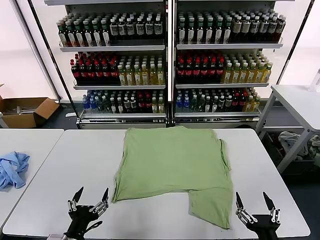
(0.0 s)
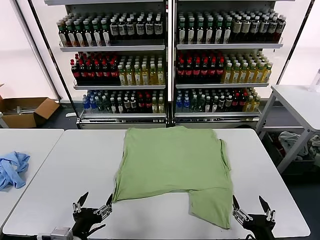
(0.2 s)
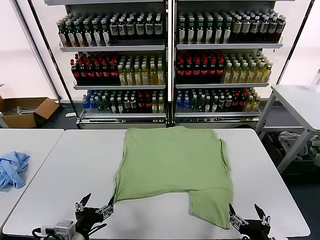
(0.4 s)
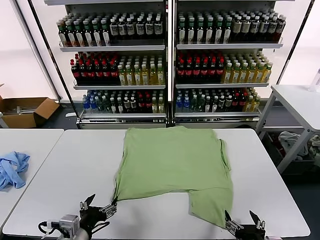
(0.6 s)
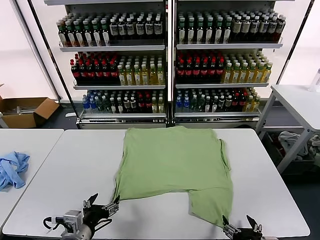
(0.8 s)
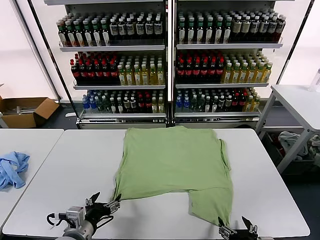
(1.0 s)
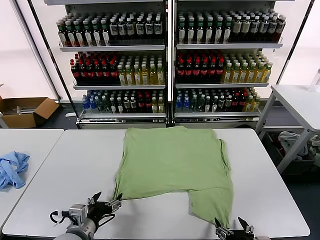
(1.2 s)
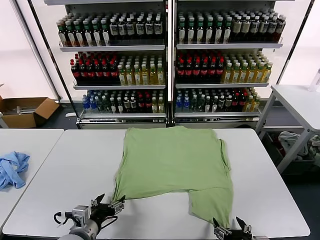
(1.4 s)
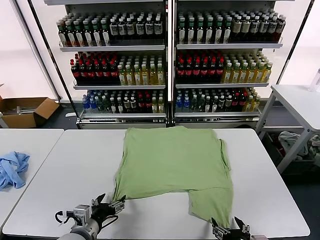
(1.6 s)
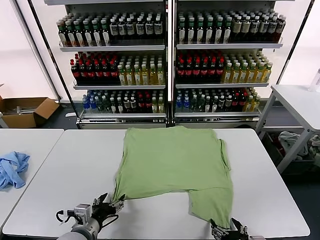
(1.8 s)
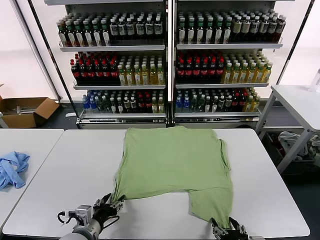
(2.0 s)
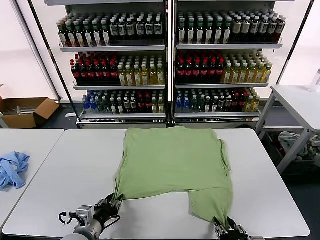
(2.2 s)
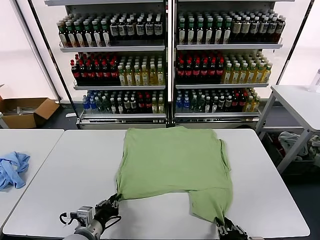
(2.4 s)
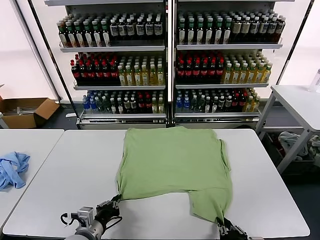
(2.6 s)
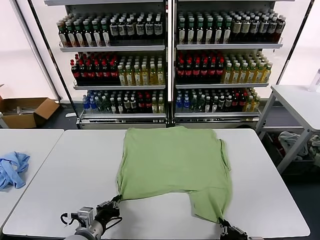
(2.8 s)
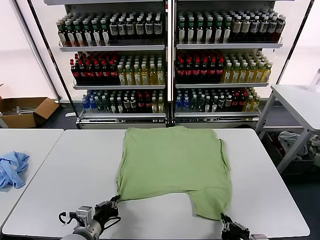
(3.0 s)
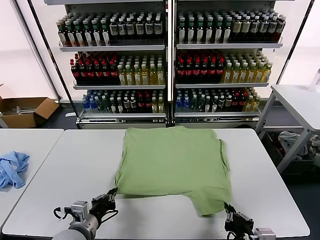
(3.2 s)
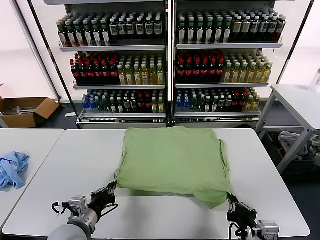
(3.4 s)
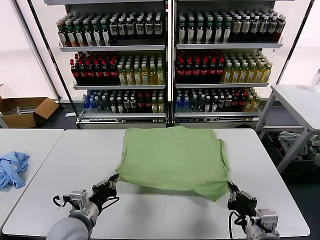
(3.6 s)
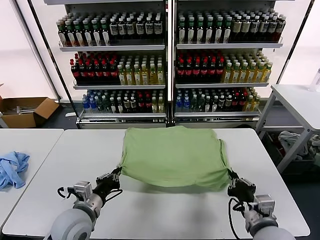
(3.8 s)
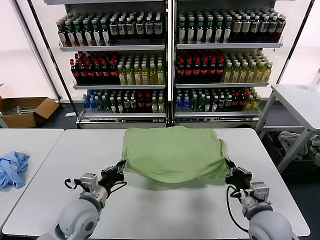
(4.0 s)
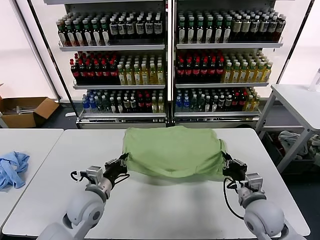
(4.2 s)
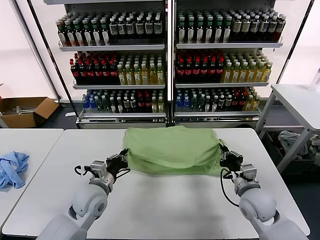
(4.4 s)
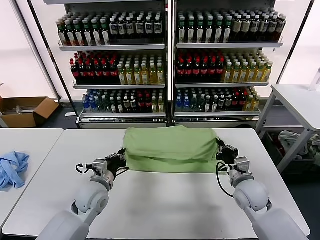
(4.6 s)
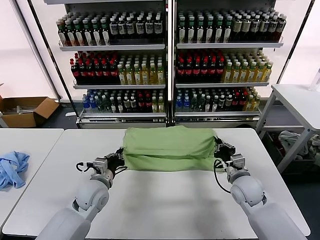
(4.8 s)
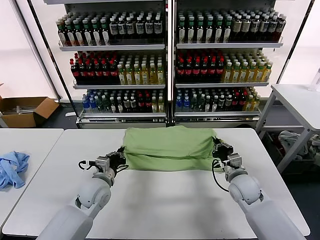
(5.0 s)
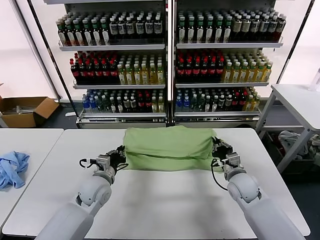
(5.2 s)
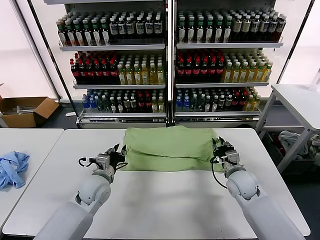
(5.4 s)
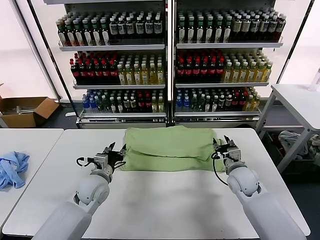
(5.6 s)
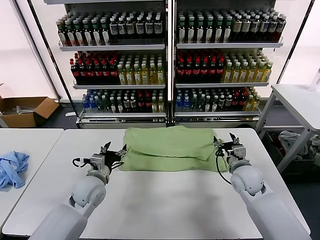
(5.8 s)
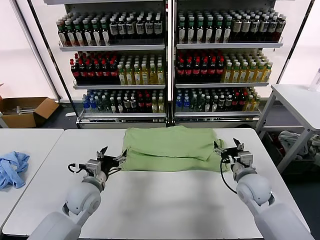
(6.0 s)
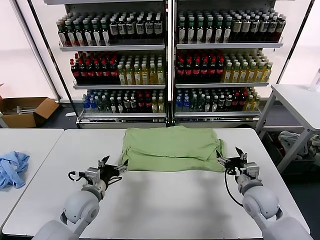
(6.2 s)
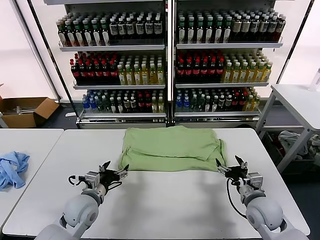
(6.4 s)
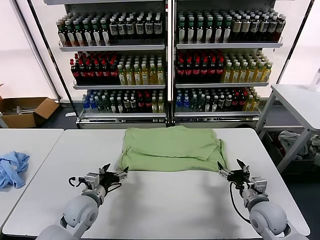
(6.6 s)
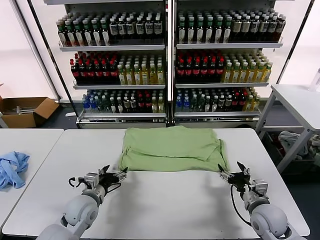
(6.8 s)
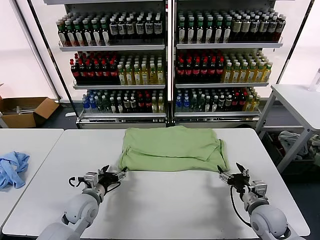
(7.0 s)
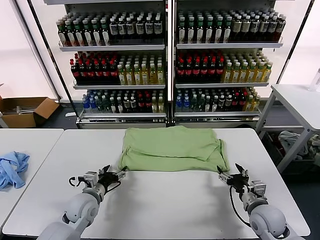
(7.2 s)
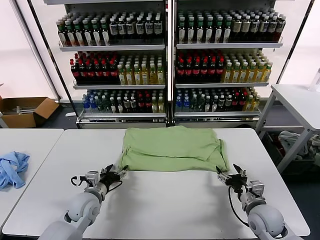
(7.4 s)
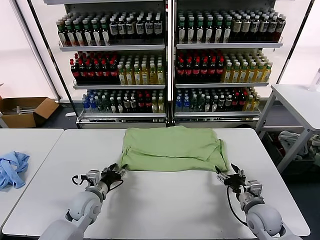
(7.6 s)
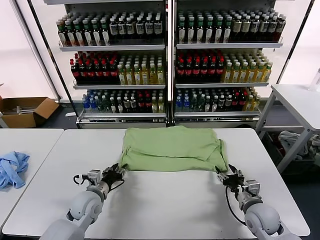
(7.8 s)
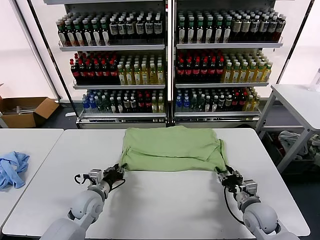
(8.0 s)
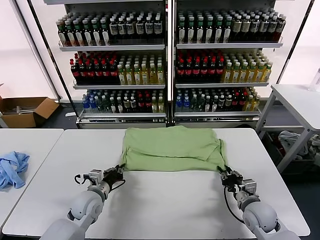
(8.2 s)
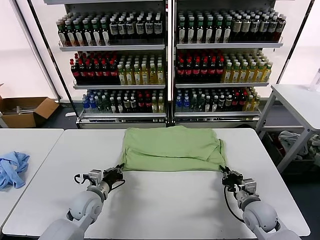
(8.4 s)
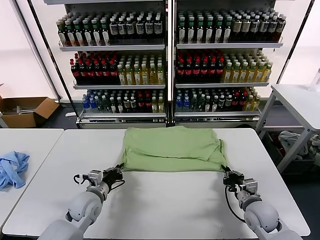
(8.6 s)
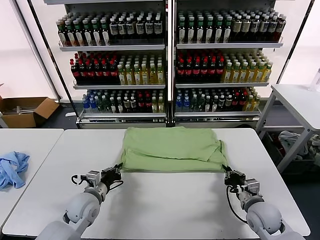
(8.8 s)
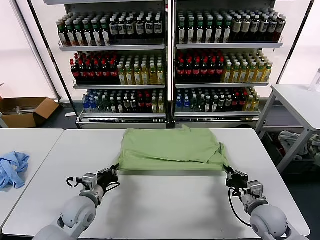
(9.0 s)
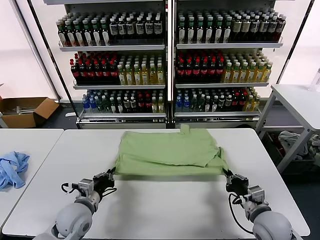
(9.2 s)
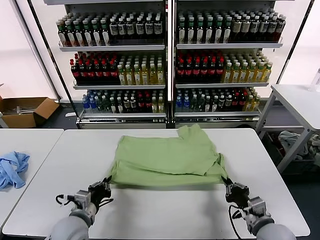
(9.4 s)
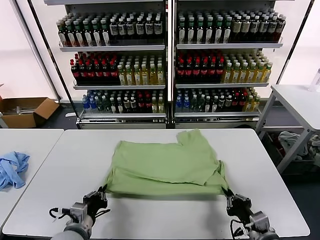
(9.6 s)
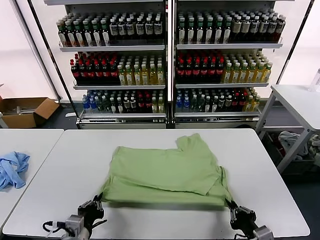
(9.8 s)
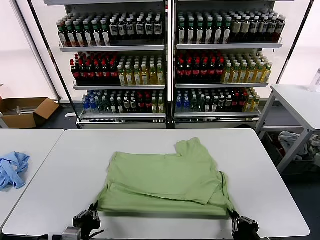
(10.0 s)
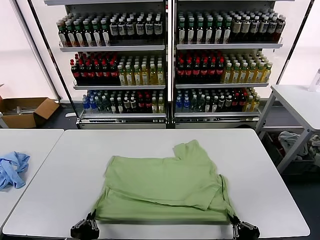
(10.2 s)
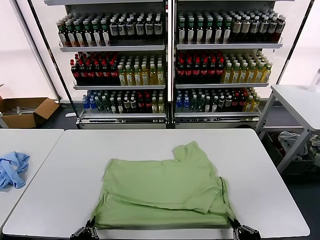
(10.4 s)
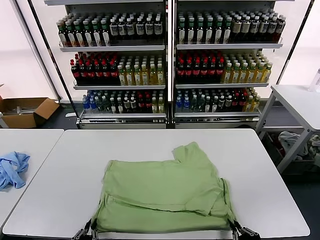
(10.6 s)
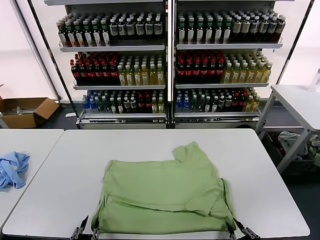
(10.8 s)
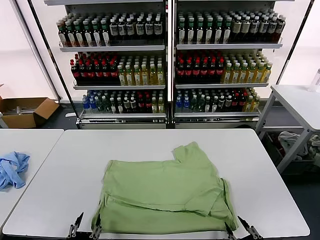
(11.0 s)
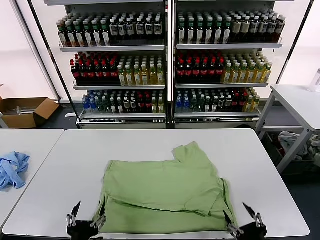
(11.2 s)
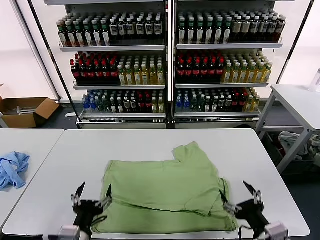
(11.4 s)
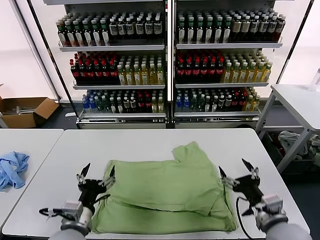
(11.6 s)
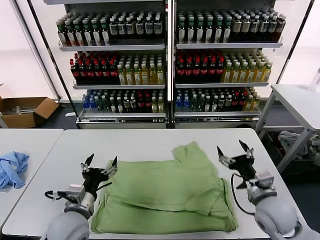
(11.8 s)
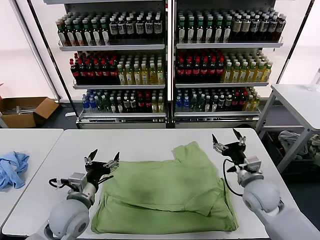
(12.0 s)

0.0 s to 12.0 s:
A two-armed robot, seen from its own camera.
Task of the whole recording: fold and organize the clothes.
Step, 0.0 to 2.8 s: use both grippers simultaneously to clamp the lower edge of the clothing fabric.
Step, 3.0 to 5.4 s: use both grippers to drag the lower edge of the fabric forward and fold it over the upper edge.
Step, 5.6 to 10.8 s: Drag the clothes downward with both gripper.
1.6 to 3.0 s: The right gripper closes its fingers; the left gripper closes its fingers.
3.0 to 4.4 s: The right gripper travels forward by about 20 cm; the left gripper heads forward, covering some 15 cm.
4.4 to 6.0 s: The left gripper opens its fingers. Meanwhile the right gripper opens up.
6.0 to 7.6 s: Both grippers travel together downward, some 5 cm. The left gripper closes up.
7.6 to 9.0 s: The right gripper closes its fingers; the left gripper closes its fingers.
9.0 to 10.4 s: The grippers both shift backward by approximately 20 cm.
10.4 to 12.0 s: The grippers both shift forward by some 25 cm. The left gripper opens. Meanwhile the right gripper opens.

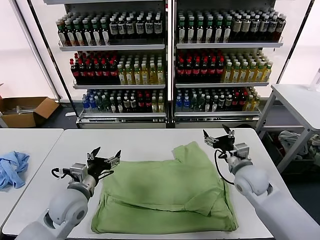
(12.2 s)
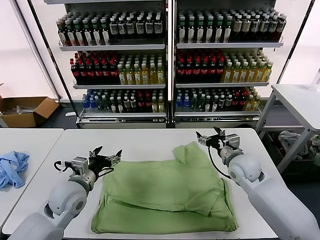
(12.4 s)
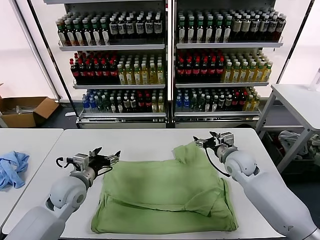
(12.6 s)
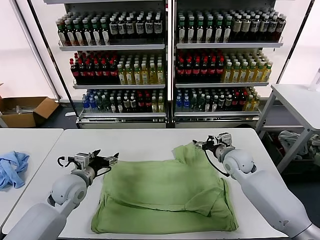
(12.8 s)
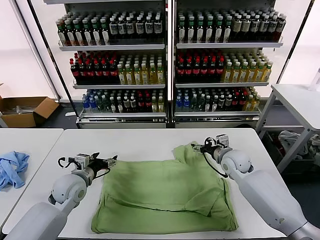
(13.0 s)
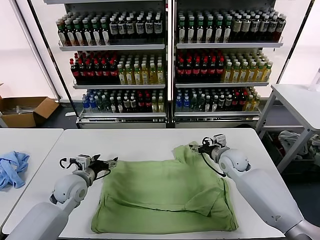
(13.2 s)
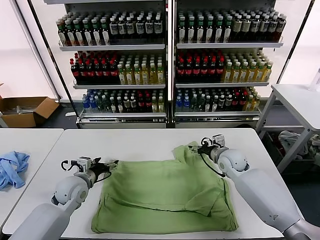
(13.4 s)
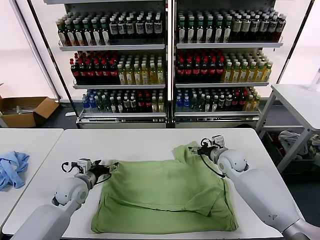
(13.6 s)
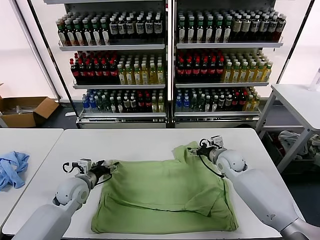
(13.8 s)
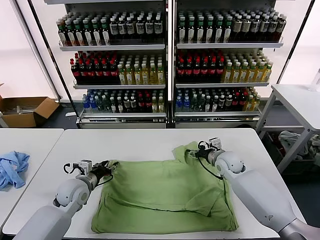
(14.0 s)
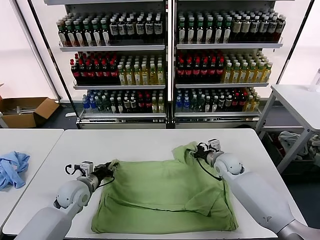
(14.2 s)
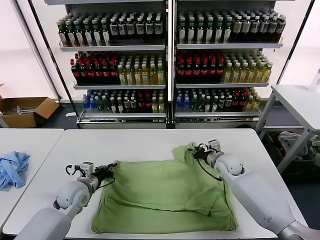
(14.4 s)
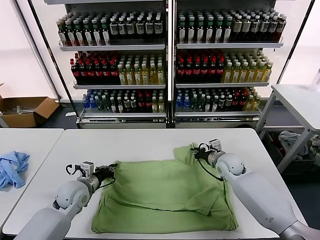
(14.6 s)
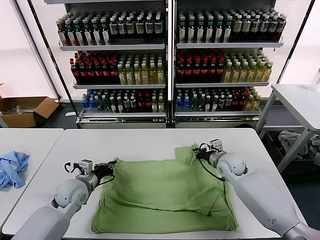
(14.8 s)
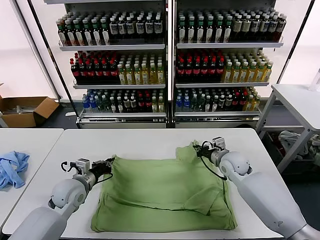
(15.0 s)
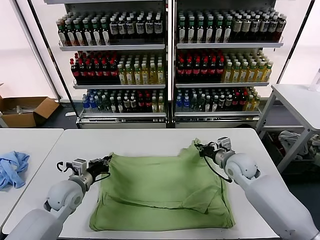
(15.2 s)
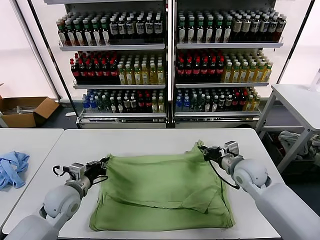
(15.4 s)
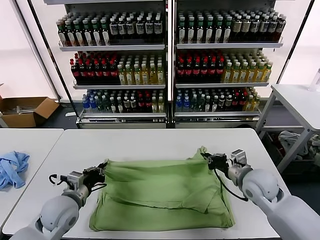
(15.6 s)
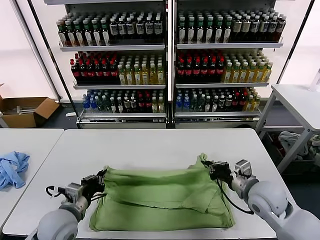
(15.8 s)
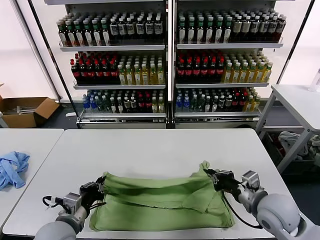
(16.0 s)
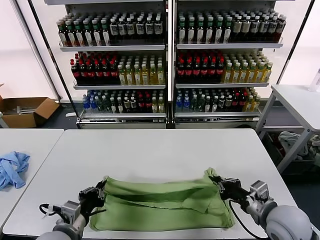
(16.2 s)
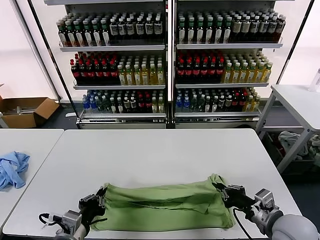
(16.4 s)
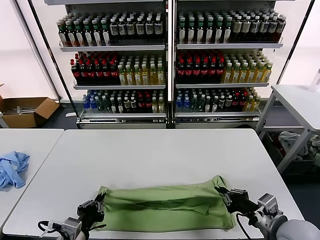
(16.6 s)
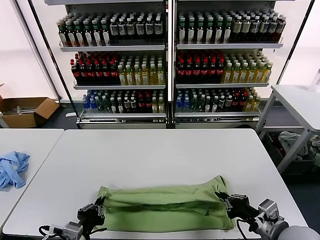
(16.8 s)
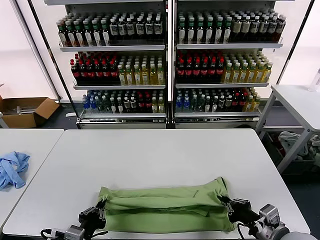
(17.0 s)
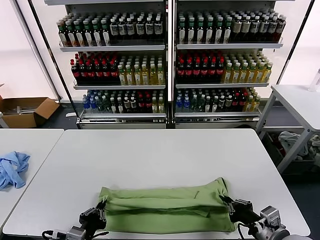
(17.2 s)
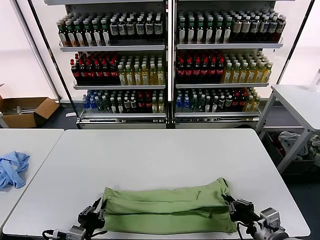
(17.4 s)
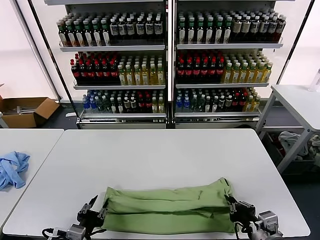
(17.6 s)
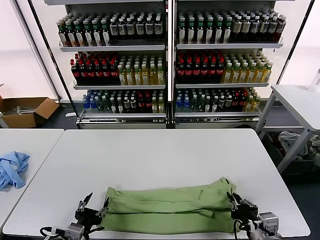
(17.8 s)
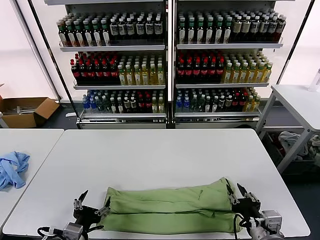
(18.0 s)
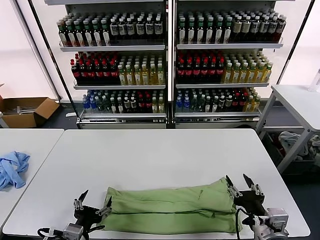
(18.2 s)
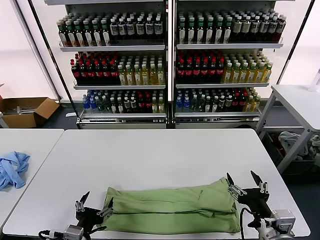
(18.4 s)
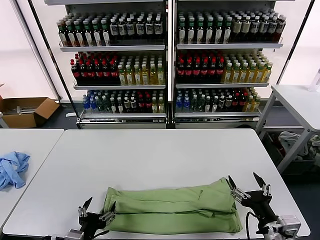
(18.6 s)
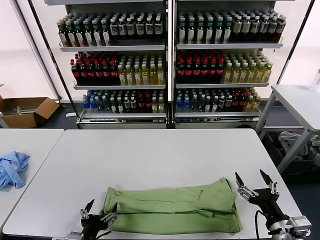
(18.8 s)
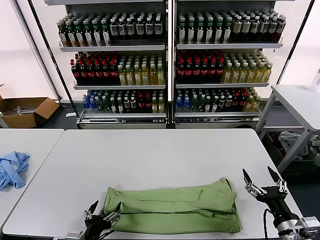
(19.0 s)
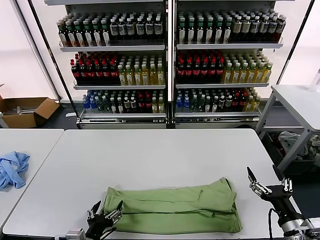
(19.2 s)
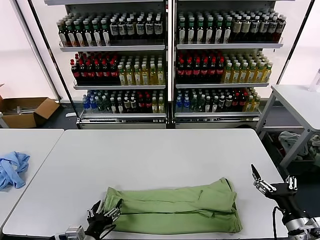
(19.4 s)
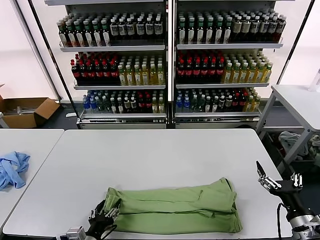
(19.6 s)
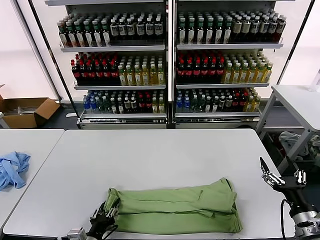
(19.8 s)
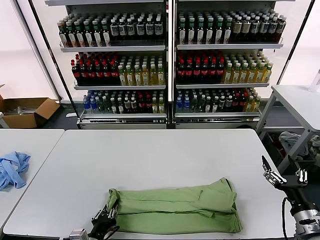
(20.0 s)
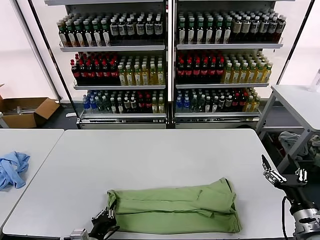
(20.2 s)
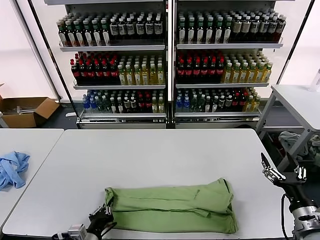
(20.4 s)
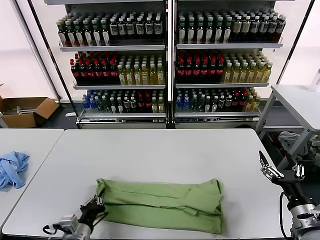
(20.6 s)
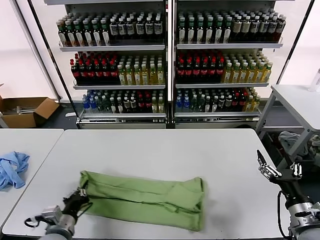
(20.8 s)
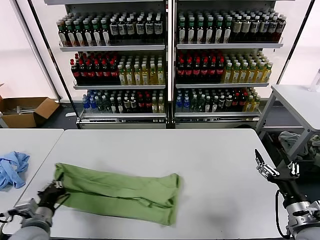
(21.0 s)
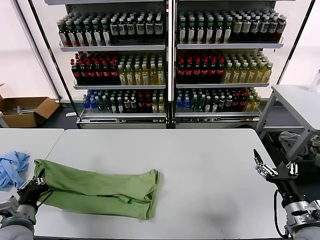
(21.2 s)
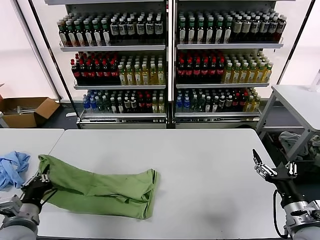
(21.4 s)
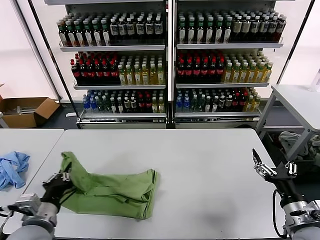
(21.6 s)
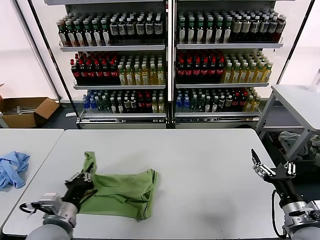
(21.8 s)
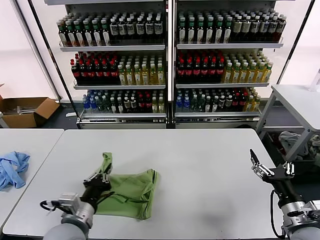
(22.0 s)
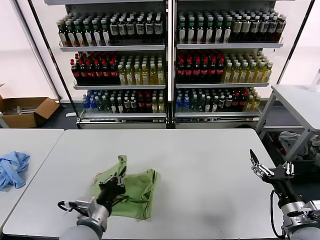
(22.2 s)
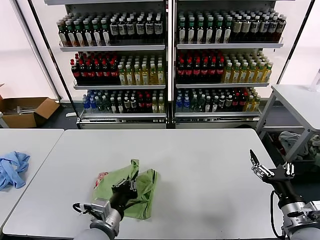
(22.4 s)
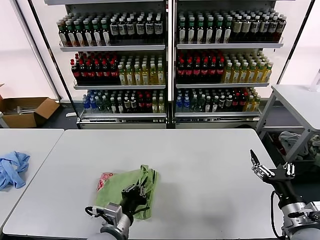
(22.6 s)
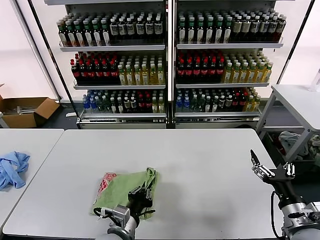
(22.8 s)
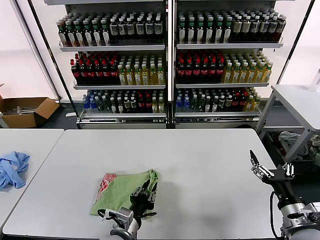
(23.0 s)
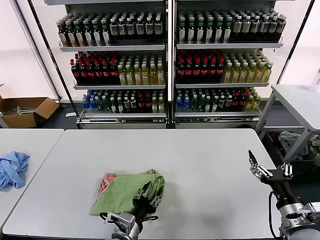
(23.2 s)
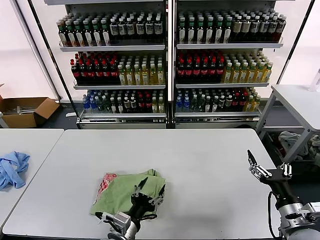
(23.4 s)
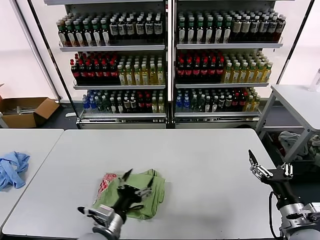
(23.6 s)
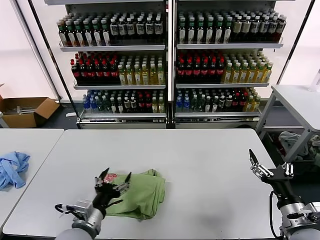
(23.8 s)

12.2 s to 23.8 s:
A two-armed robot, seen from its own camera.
Task of the whole recording: fold and organize the clothes.
Step, 12.2 to 14.6 s: use both grippers simultaneously to clamp the upper edge of the clothing fabric.
Step, 14.8 to 18.0 s: use both grippers to drag the upper edge of the fabric backward and fold it over the lower edge.
Step, 18.2 to 20.2 s: use the left gripper to clamp the left edge of the fabric.
Step, 20.4 to 23.2 s: use the left gripper to drag the left edge of the fabric to the left and folds it over the right edge.
12.2 to 13.6 s: The left gripper goes about 10 cm forward and downward, while the right gripper is displaced forward by approximately 10 cm.
13.6 to 15.0 s: The left gripper closes. Meanwhile the right gripper closes up.
15.0 to 16.6 s: Both grippers move backward, roughly 25 cm.
16.6 to 18.0 s: The left gripper opens. The right gripper heads to the left, covering about 5 cm, and opens its fingers.
18.0 to 19.4 s: The right gripper travels to the right by approximately 10 cm, and opens its fingers.
19.4 to 21.0 s: The left gripper heads to the left and forward, covering about 10 cm, and closes.
21.0 to 22.4 s: The left gripper is displaced to the right by roughly 15 cm.
22.4 to 23.8 s: The left gripper opens up.
